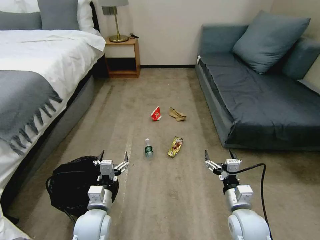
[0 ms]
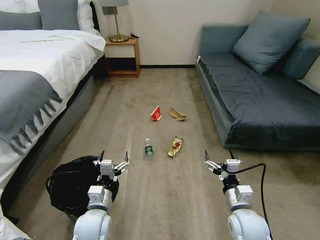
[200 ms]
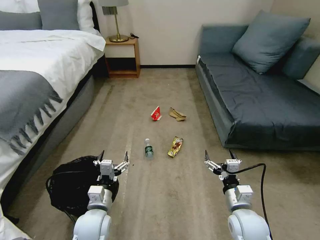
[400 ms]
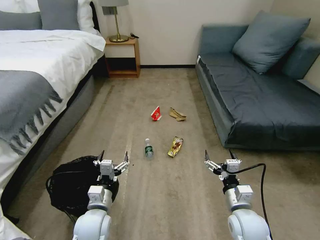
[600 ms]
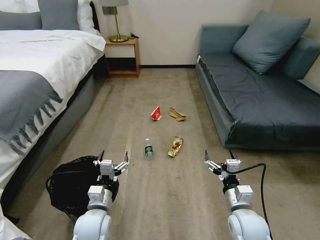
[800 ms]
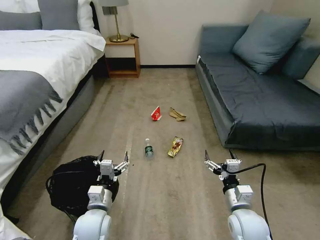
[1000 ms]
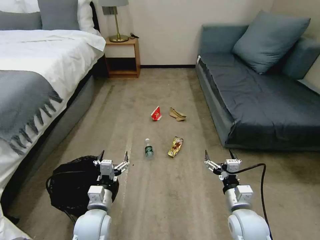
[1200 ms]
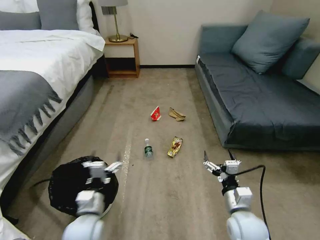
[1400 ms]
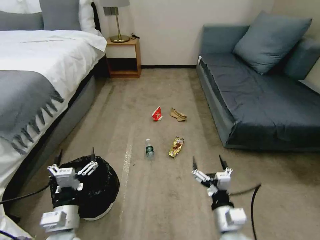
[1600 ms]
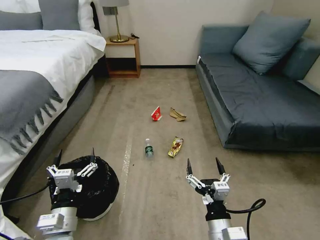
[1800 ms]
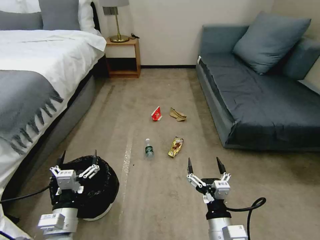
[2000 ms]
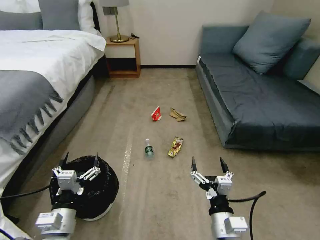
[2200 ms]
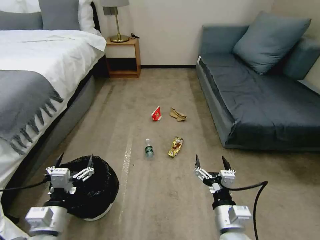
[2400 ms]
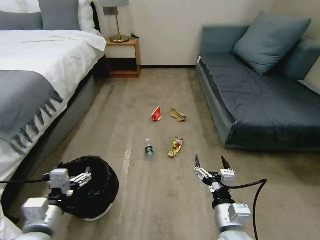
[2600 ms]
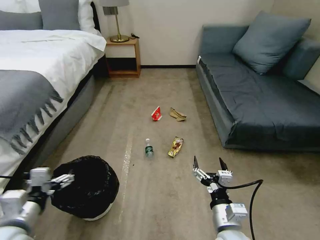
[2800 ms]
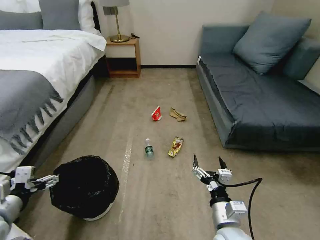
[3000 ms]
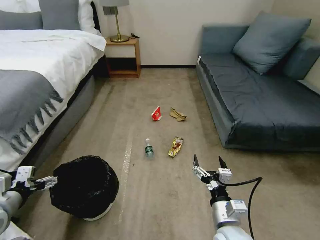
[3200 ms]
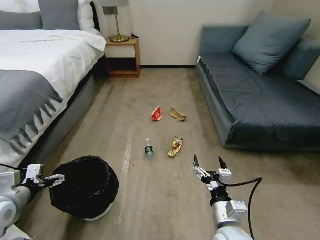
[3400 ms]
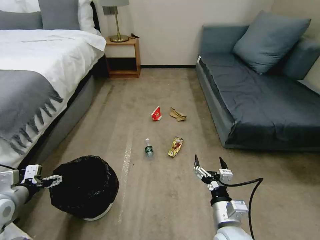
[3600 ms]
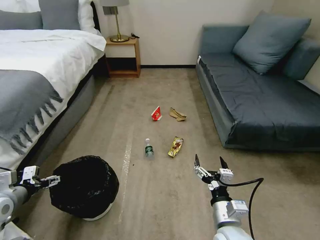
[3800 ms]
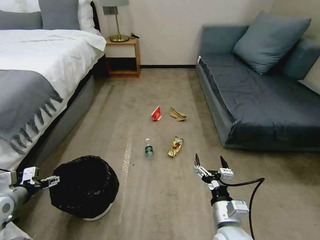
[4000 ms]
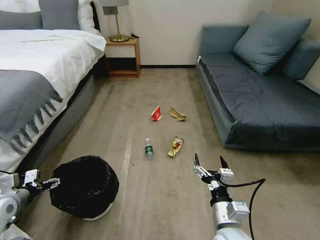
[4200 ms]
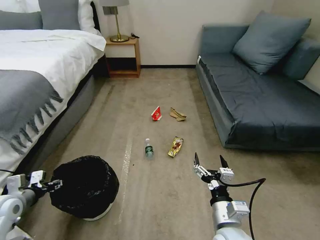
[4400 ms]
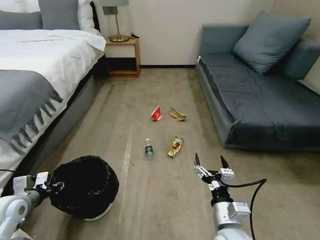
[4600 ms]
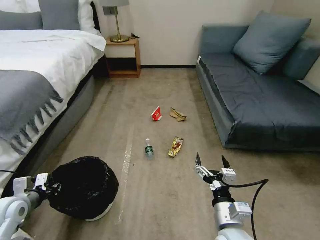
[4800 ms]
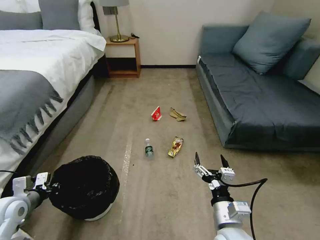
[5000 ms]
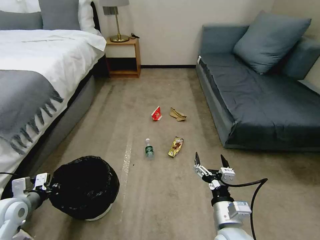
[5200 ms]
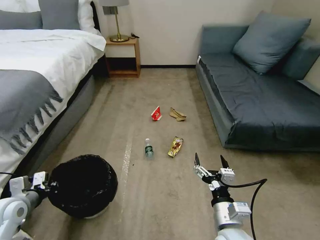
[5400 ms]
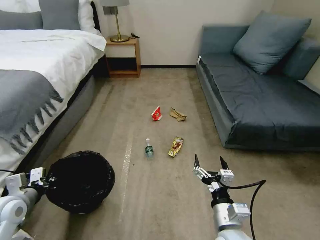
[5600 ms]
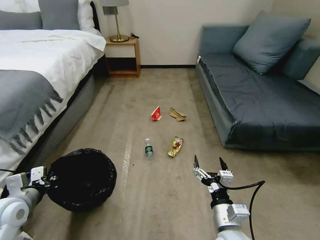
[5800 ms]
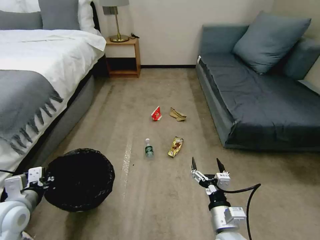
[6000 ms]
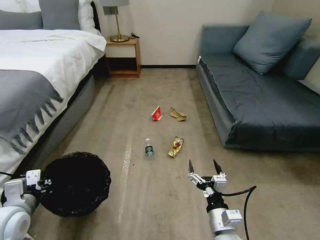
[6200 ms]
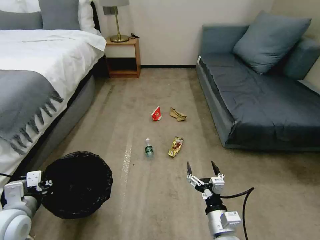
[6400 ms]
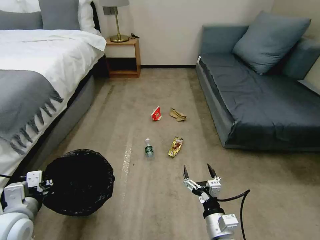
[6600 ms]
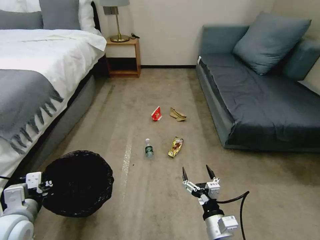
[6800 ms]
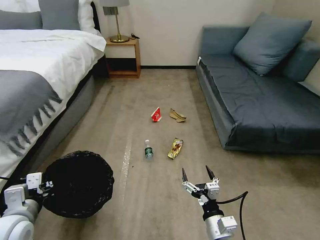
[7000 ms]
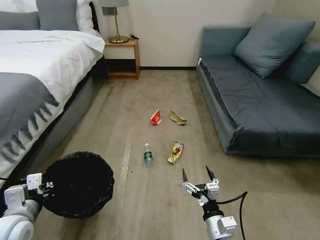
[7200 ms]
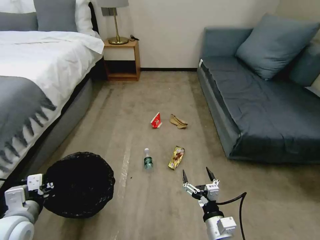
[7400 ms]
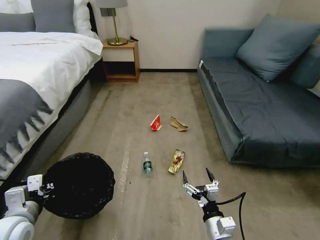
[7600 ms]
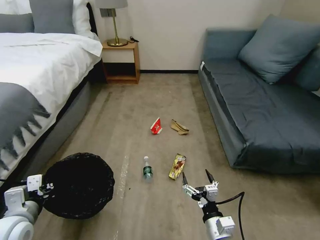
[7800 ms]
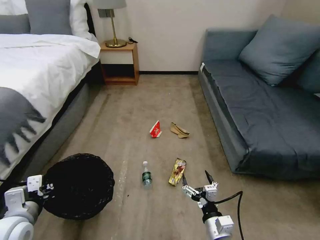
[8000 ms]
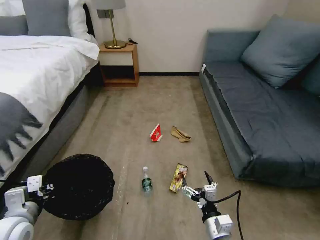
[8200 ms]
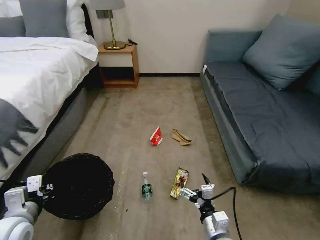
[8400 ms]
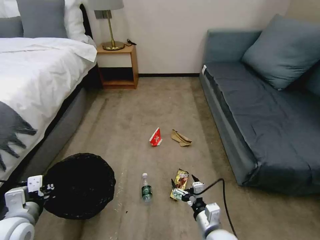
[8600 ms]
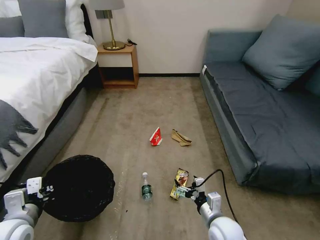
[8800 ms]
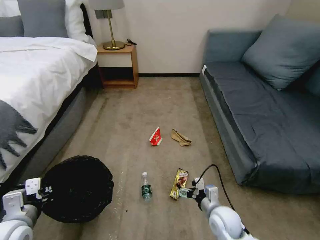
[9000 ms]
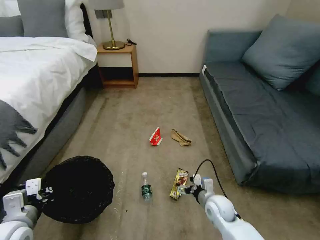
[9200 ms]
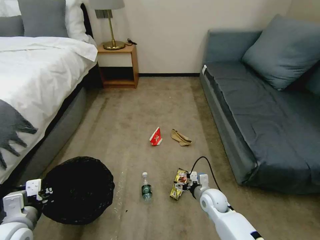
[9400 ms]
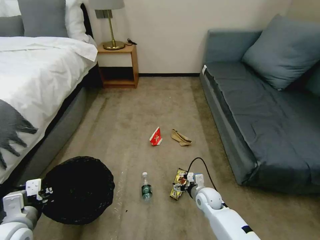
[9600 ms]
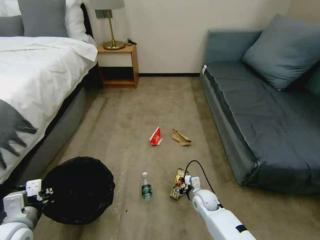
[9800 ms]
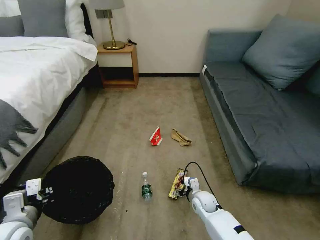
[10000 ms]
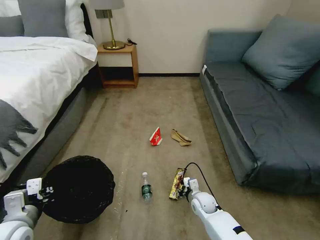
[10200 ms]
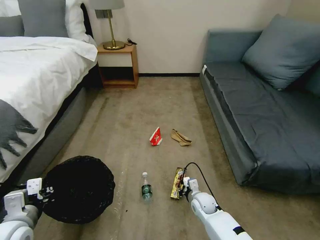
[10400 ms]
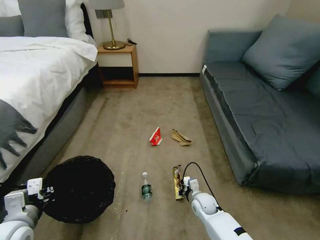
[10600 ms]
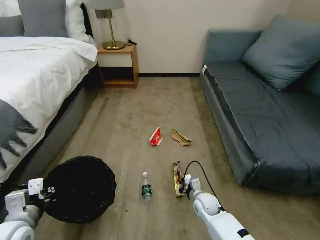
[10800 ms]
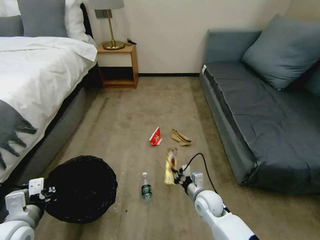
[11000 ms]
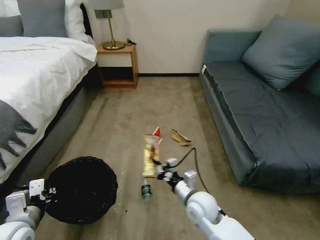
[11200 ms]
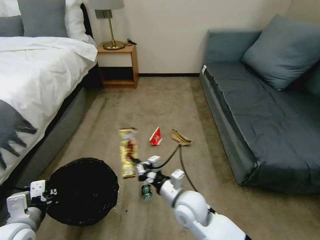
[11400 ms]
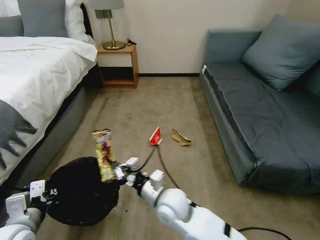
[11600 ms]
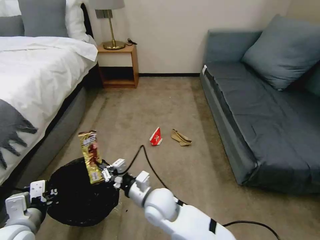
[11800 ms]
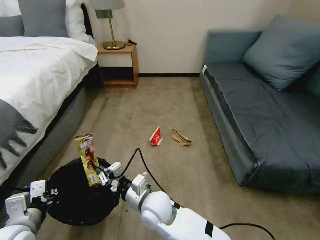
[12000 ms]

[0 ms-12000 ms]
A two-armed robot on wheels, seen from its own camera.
Task of the whole recording: Pick up the trash bin, then pick up the garbage on the floor and place it into the trash bin.
1600 ms to 3000 ms: The left gripper heads to the left and upward, covering about 15 cm.
3000 ms to 4400 ms: The left gripper is displaced downward, forward and to the left by approximately 15 cm, and closes up.
4400 ms to 6000 ms: The left gripper moves to the right, some 5 cm, and closes up.
6000 ms to 7600 ms: The right gripper shifts by roughly 5 cm.
7600 ms to 9000 ms: The right gripper heads forward, covering roughly 10 cm.
9000 ms to 10400 ms: The right gripper shifts some 10 cm downward and forward, and closes its fingers.
10400 ms to 12000 ms: The right gripper is displaced to the left and upward by some 25 cm.

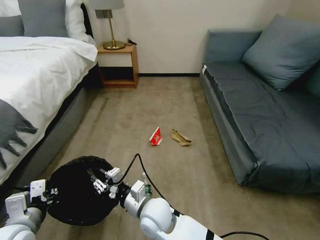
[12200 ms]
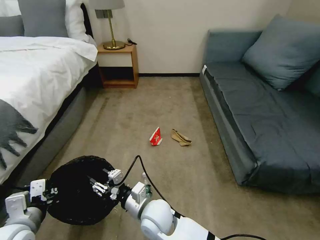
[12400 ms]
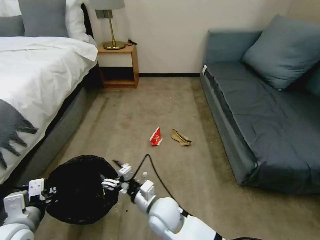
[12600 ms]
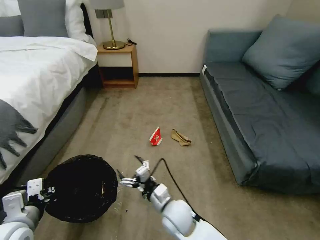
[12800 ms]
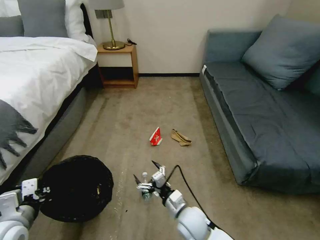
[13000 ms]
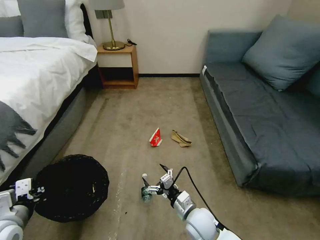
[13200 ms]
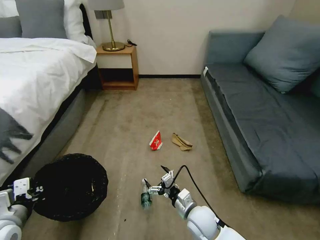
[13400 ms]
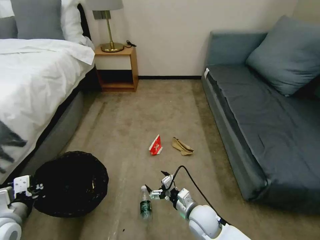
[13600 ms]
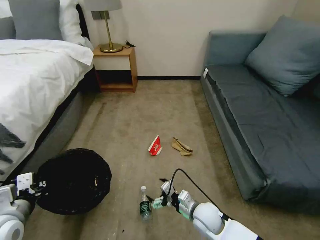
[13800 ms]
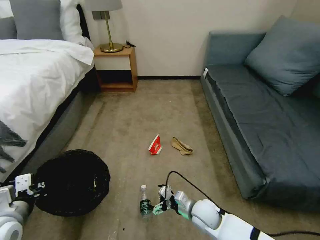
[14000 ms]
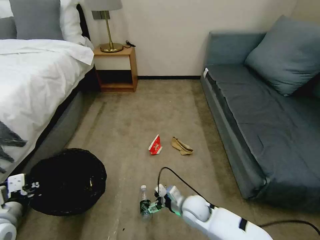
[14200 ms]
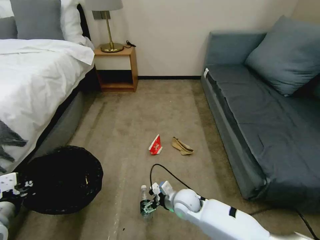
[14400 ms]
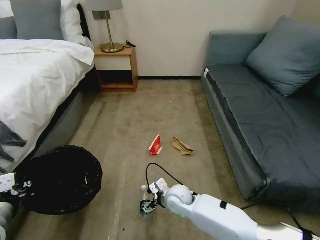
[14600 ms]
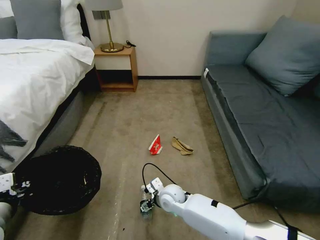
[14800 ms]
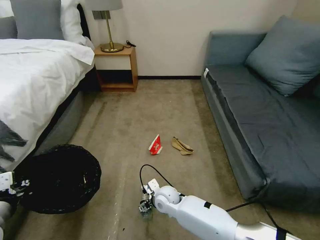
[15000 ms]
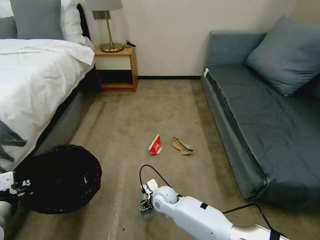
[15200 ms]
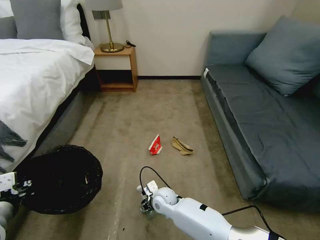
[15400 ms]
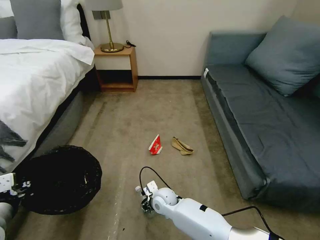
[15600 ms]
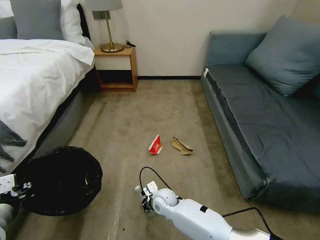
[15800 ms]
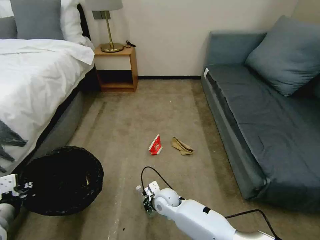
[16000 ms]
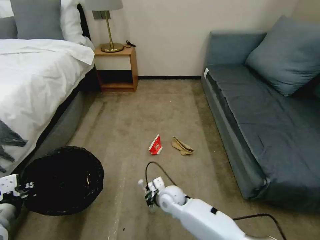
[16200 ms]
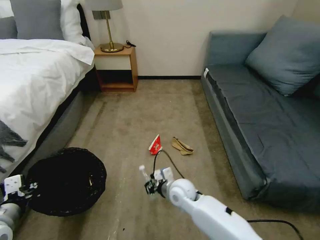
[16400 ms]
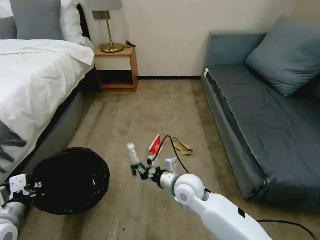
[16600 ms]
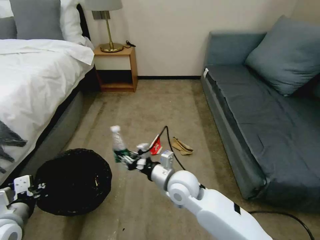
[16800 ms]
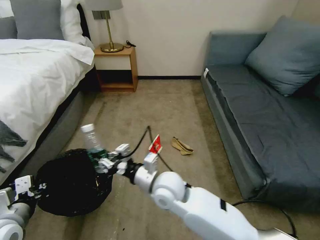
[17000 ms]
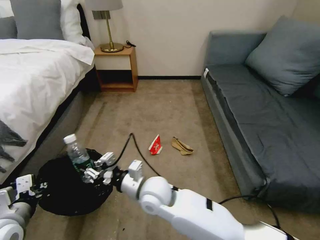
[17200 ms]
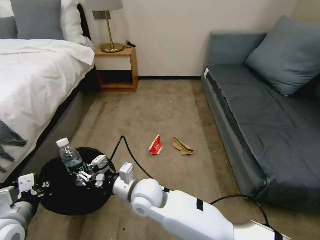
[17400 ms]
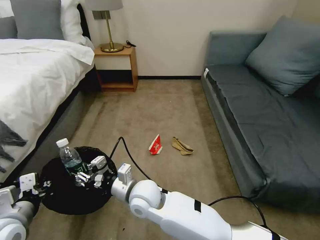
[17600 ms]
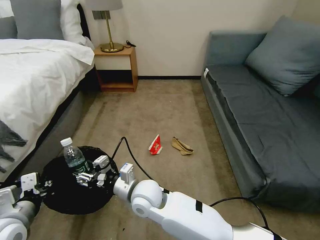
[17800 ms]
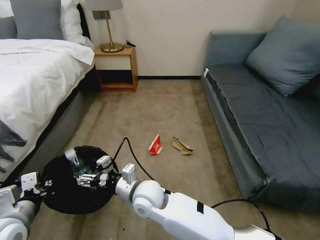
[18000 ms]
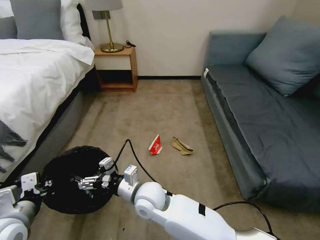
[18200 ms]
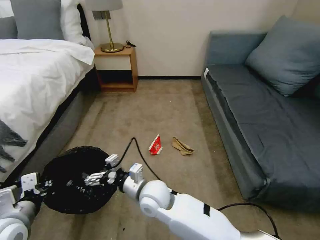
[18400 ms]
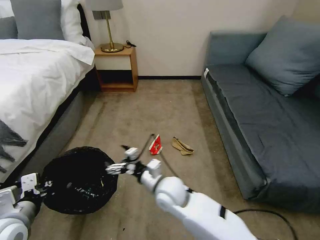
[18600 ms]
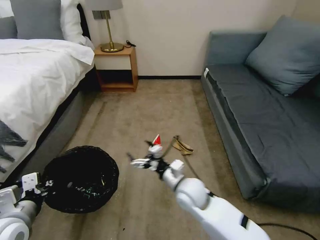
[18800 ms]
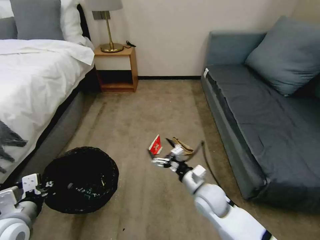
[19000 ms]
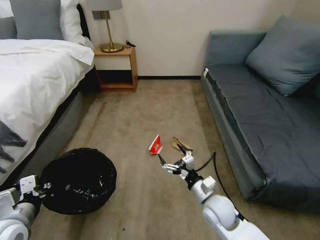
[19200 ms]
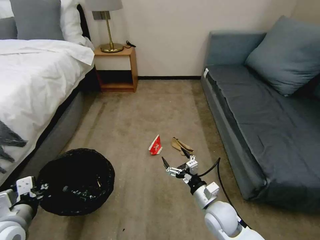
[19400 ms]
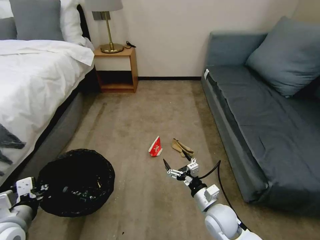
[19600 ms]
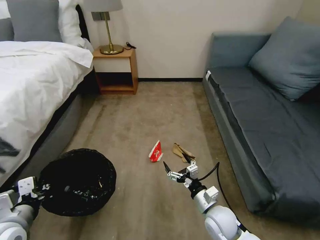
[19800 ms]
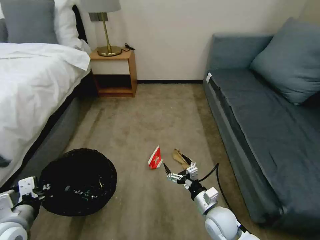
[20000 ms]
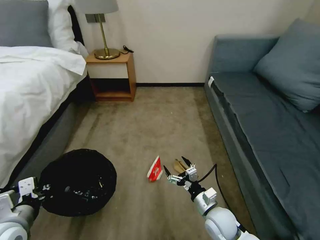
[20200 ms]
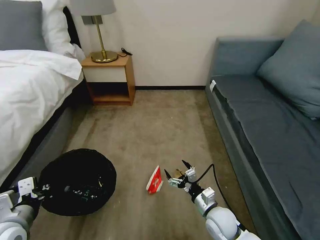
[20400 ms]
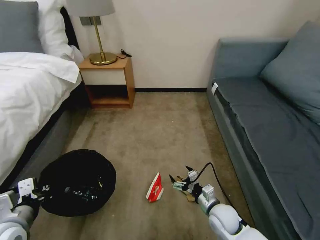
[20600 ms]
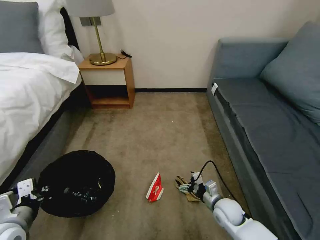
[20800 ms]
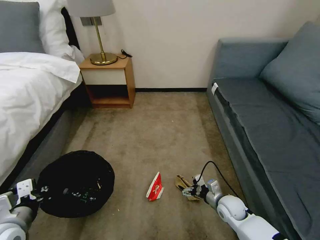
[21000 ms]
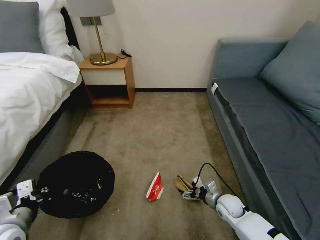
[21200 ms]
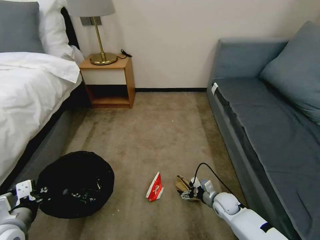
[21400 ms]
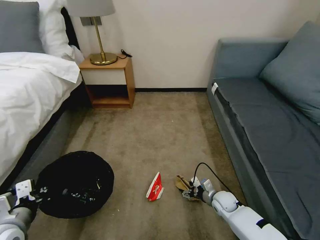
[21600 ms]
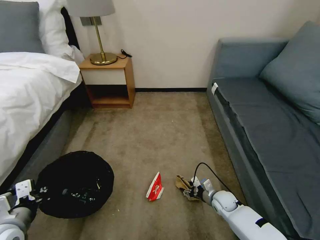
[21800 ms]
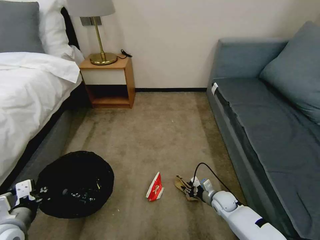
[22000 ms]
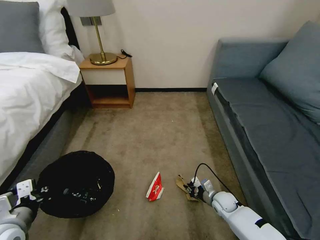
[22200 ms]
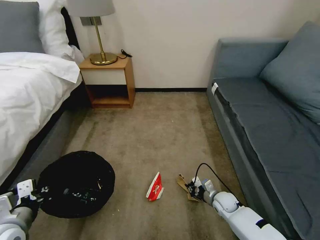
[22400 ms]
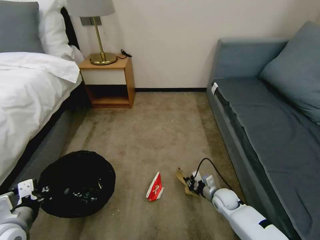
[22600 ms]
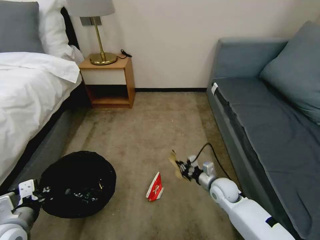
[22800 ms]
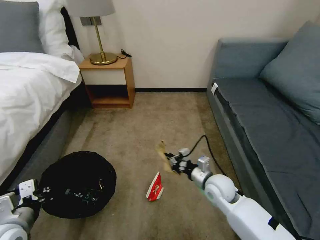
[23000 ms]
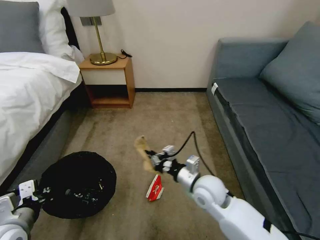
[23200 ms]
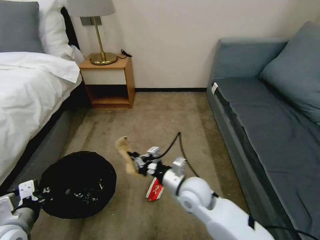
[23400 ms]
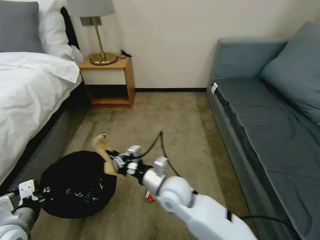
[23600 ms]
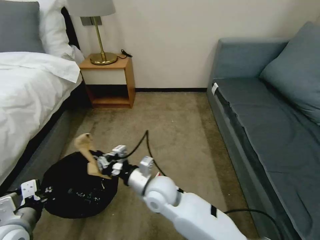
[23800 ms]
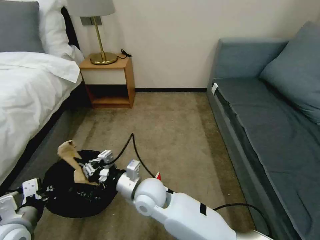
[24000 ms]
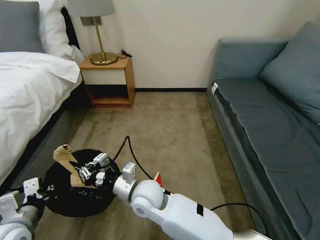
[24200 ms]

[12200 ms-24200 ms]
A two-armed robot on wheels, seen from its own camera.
Task of the whole recording: Pick up the trash bin, then pick up the garbage on the floor and place it into the trash bin.
12200 ms to 13800 ms: The right gripper goes about 20 cm to the right and downward, and opens.
13800 ms to 15200 ms: The right gripper shifts some 15 cm to the left and forward.
15200 ms to 16600 ms: The right gripper heads upward and to the right, covering some 15 cm, and closes up.
16600 ms to 18200 ms: The right gripper moves to the left, some 15 cm, and opens its fingers.
18200 ms to 19800 ms: The right gripper heads to the right, covering some 25 cm.
19800 ms to 21200 ms: The right gripper goes roughly 15 cm downward, to the right and forward.
21200 ms to 22600 ms: The right gripper closes its fingers.
22600 ms to 24200 ms: The right gripper goes some 40 cm to the left and upward.
